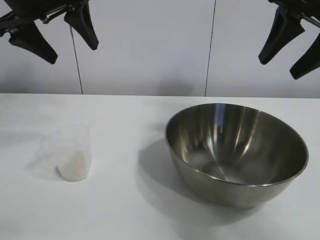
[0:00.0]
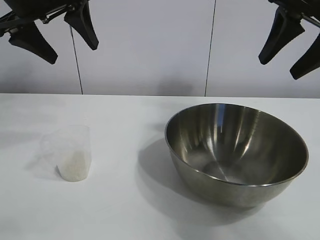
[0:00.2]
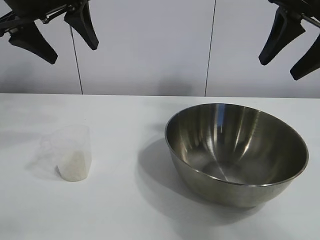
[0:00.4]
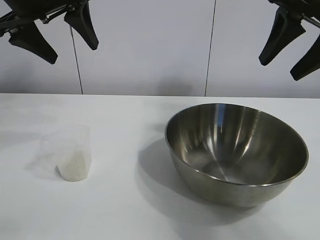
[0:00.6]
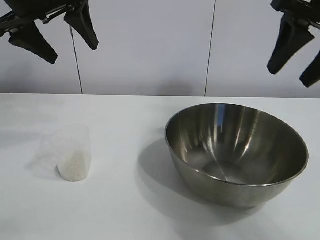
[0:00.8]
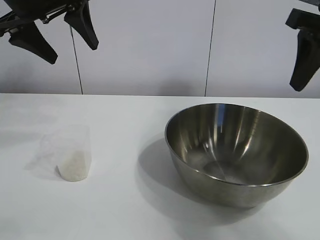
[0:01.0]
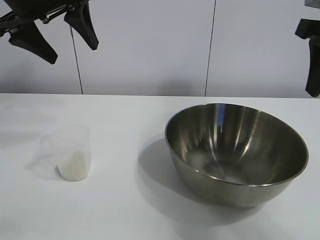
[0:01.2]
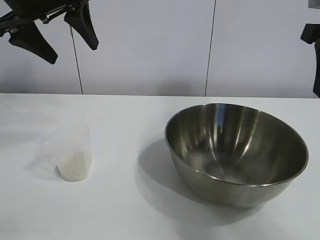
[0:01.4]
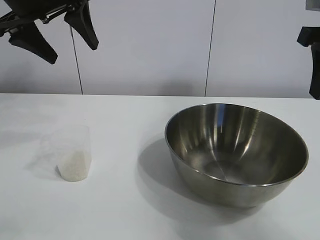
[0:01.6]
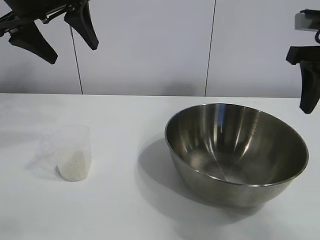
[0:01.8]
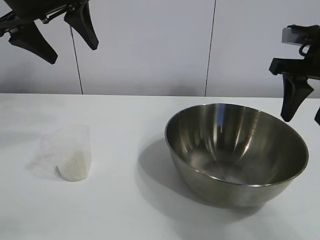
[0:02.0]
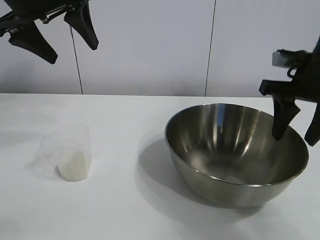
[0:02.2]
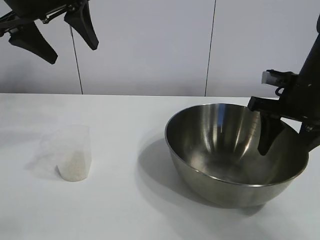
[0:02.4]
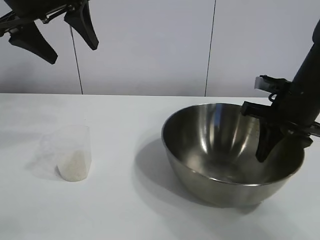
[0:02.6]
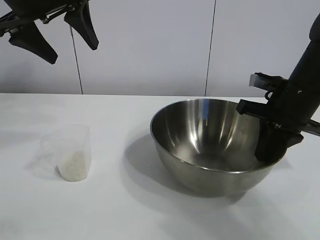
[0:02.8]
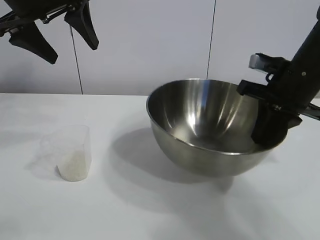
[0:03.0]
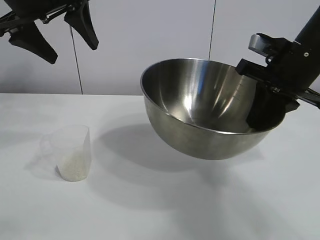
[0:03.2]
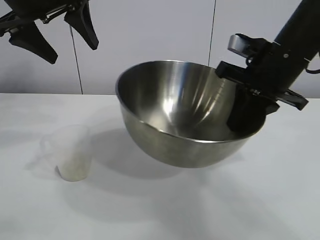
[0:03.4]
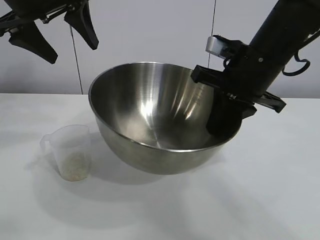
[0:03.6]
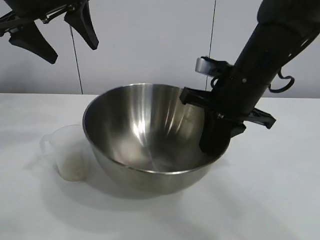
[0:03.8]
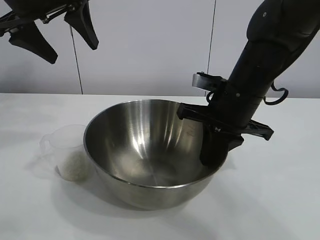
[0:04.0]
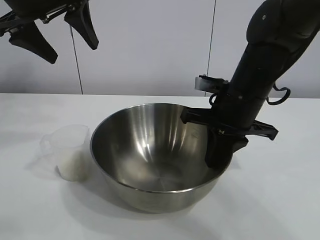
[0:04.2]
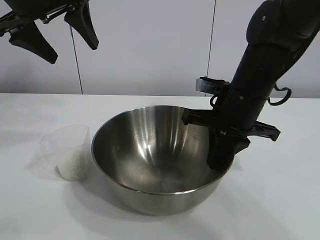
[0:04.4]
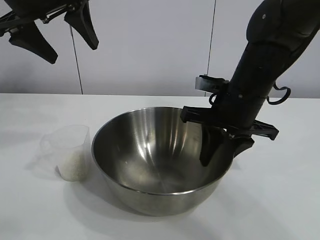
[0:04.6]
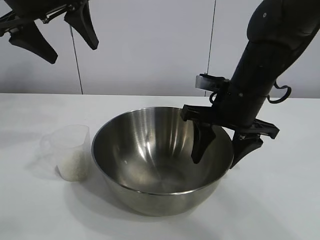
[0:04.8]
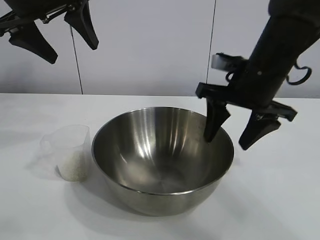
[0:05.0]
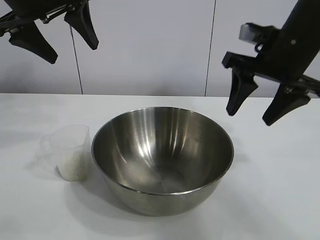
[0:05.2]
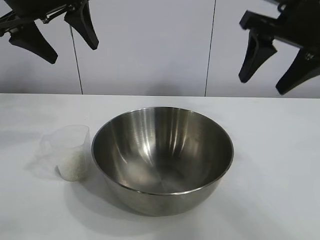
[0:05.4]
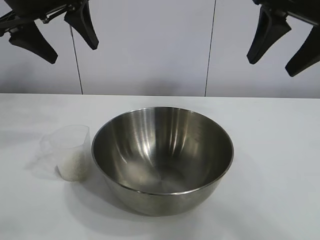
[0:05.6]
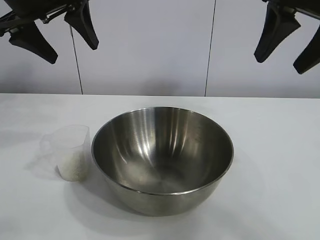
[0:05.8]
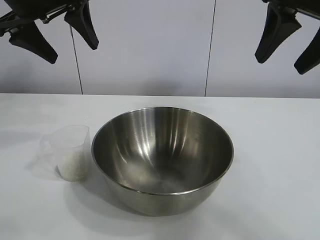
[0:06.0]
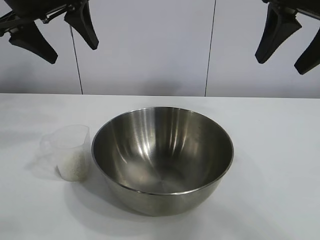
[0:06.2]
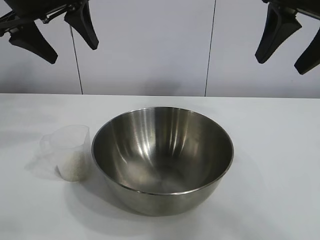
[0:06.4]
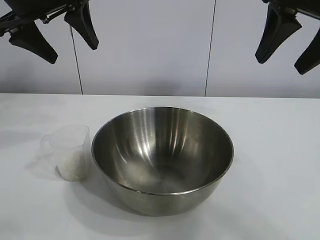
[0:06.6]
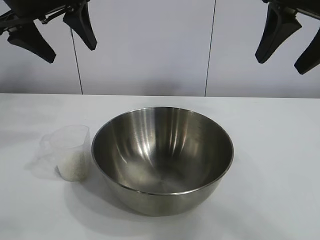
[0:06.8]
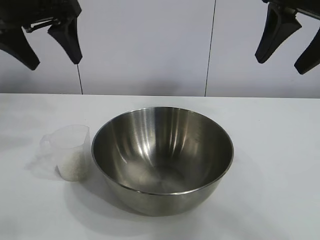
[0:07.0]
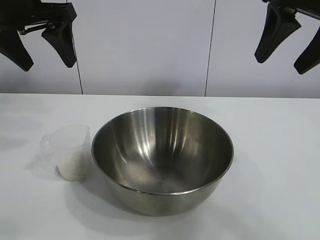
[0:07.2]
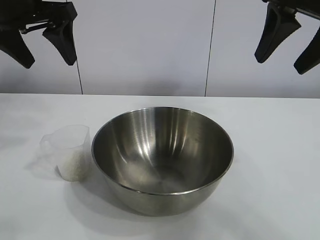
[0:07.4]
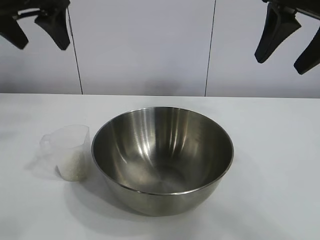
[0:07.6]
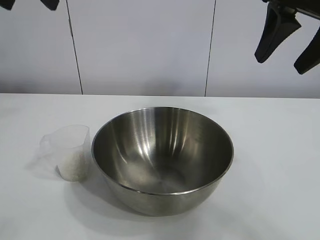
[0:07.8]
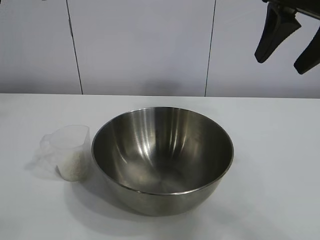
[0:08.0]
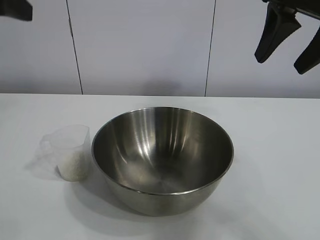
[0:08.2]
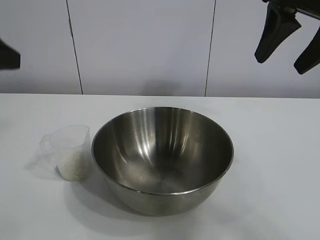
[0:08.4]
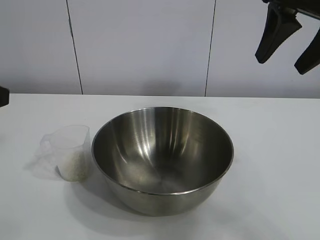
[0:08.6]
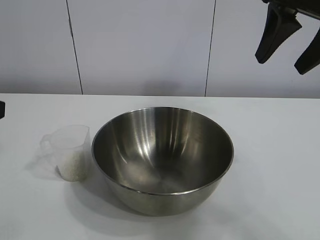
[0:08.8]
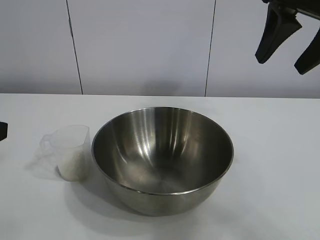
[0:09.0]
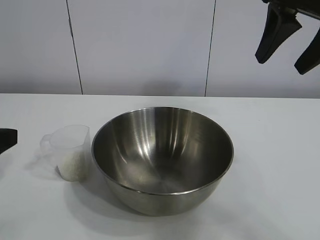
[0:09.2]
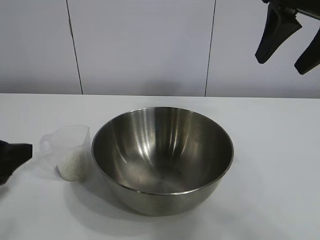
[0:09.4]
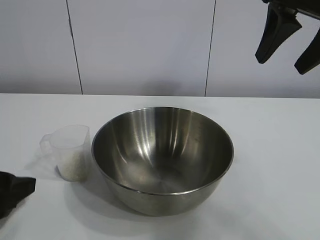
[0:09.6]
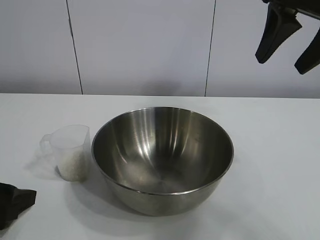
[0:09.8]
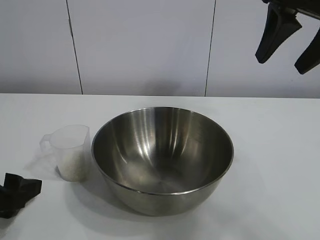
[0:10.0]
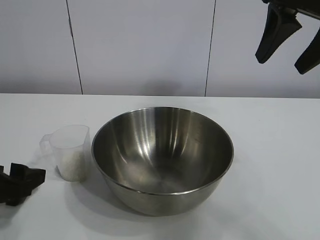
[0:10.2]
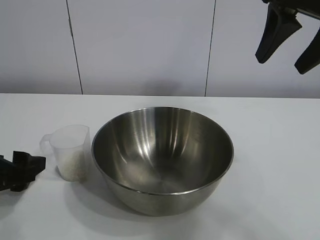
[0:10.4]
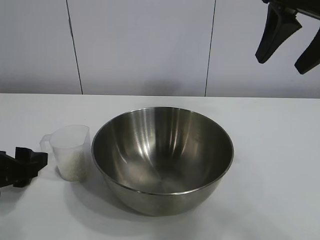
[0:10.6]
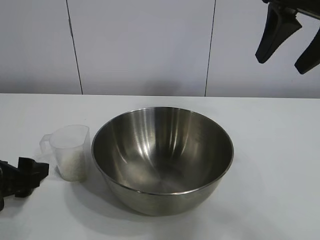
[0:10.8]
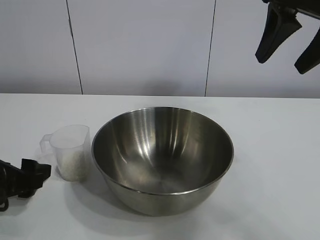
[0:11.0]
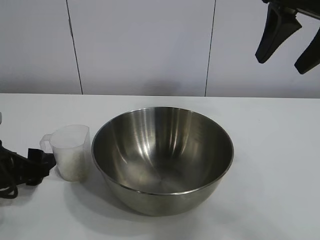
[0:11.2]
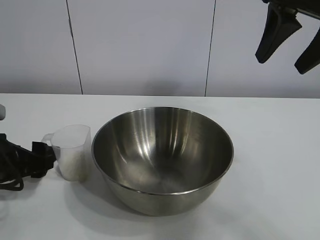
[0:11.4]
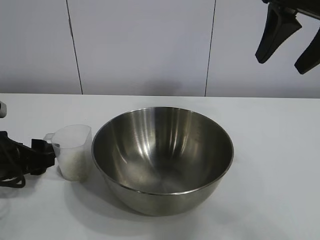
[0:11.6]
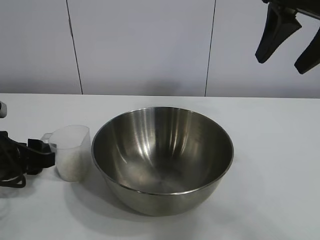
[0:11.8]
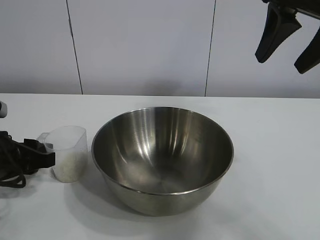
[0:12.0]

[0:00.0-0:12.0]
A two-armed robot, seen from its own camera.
Task of the whole recording: the right gripper grasp the rice container and place it in the center of the table, the left gripper grasp the rice scoop and pour the rice into the rice container.
Step, 0:00.8 to 0:04.8: Move the bowl in the center of view with right gripper.

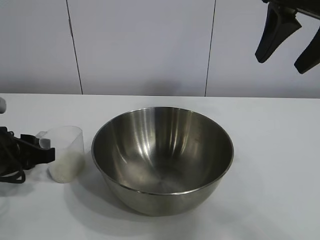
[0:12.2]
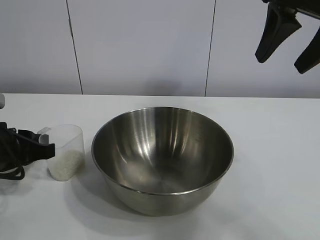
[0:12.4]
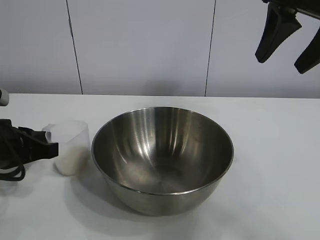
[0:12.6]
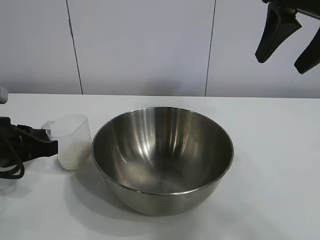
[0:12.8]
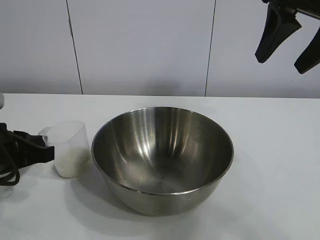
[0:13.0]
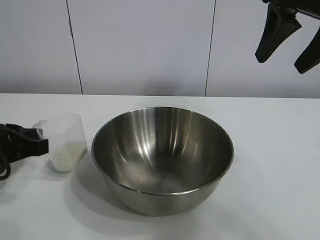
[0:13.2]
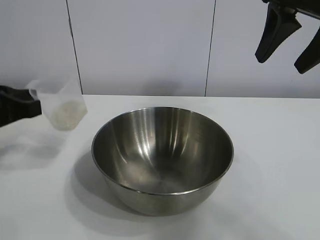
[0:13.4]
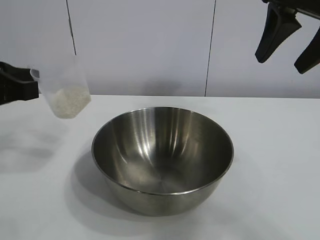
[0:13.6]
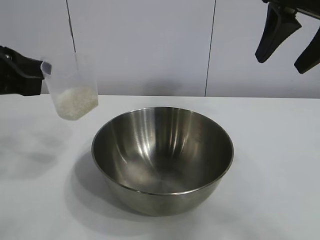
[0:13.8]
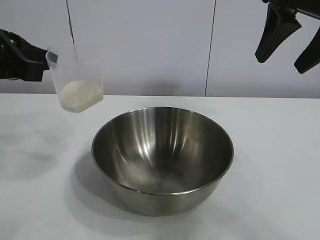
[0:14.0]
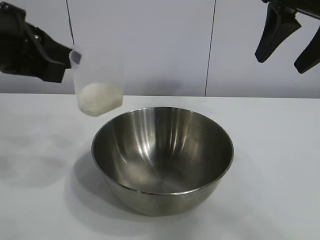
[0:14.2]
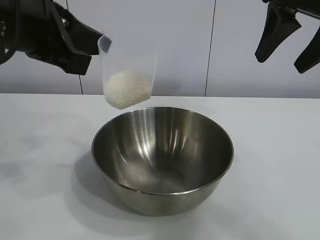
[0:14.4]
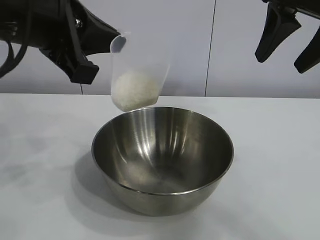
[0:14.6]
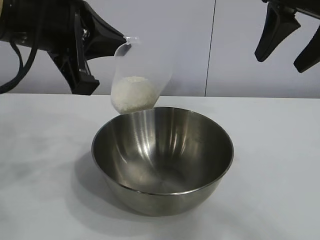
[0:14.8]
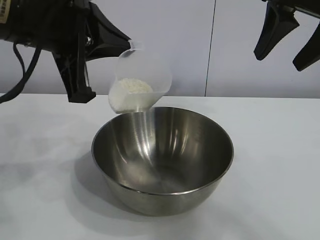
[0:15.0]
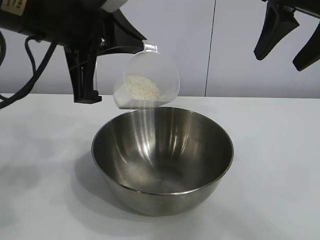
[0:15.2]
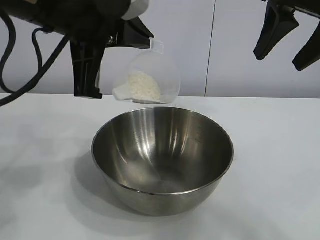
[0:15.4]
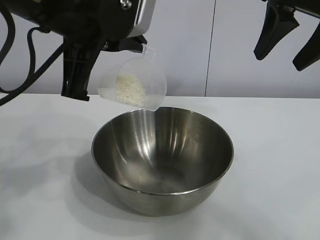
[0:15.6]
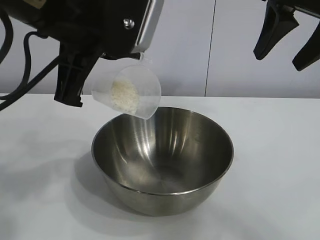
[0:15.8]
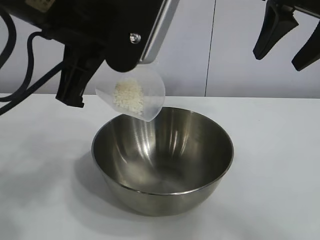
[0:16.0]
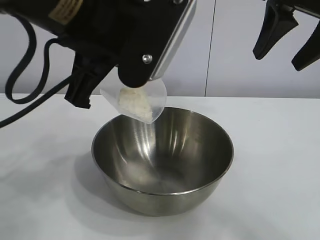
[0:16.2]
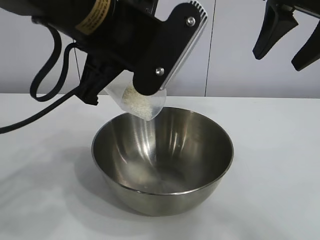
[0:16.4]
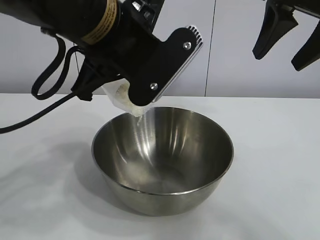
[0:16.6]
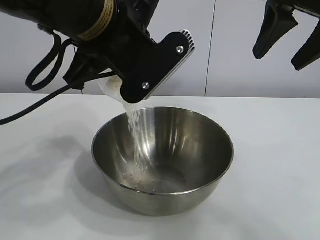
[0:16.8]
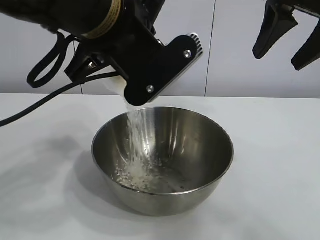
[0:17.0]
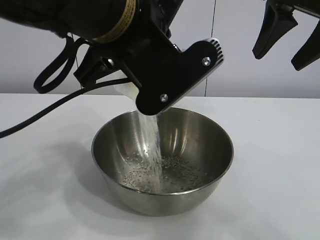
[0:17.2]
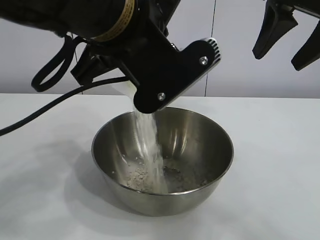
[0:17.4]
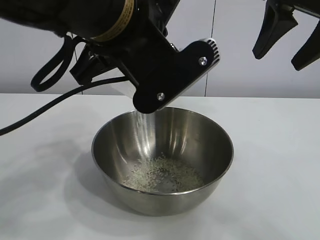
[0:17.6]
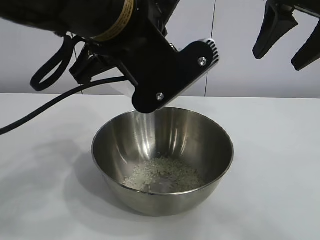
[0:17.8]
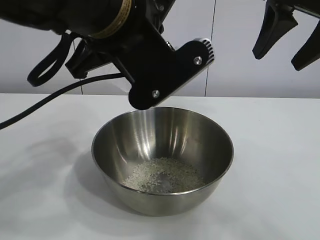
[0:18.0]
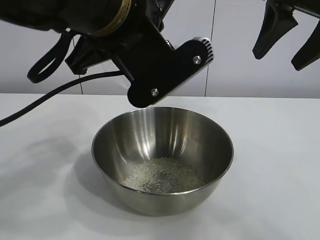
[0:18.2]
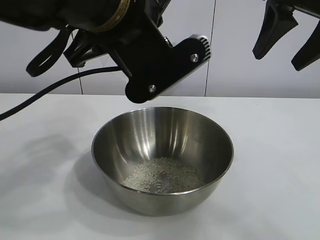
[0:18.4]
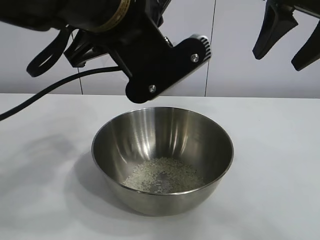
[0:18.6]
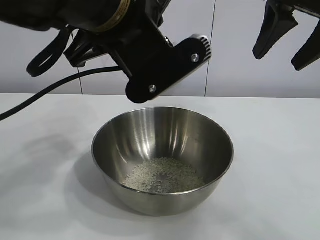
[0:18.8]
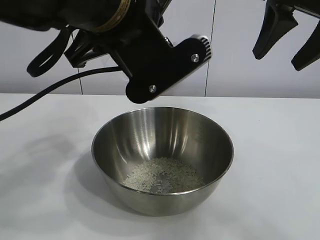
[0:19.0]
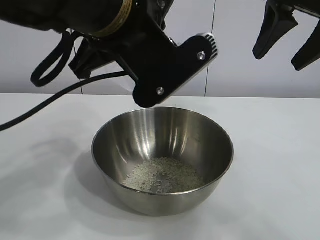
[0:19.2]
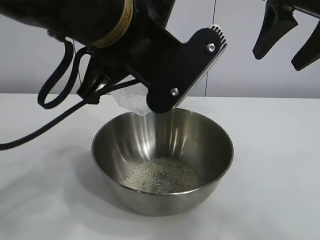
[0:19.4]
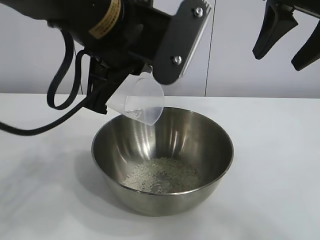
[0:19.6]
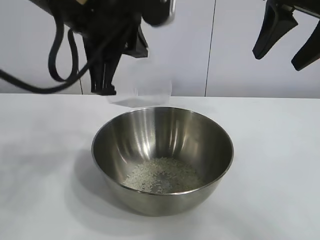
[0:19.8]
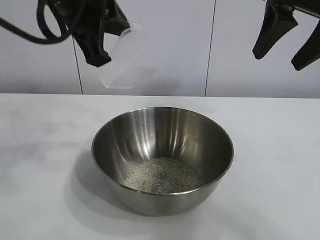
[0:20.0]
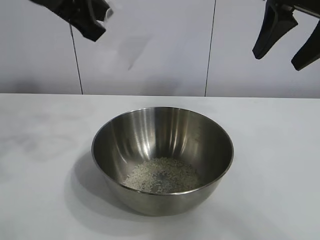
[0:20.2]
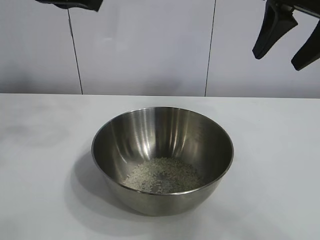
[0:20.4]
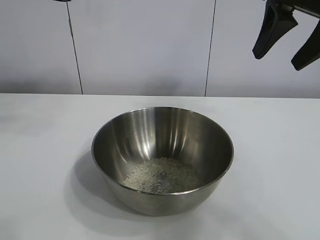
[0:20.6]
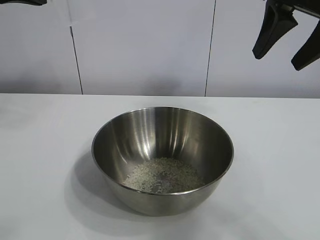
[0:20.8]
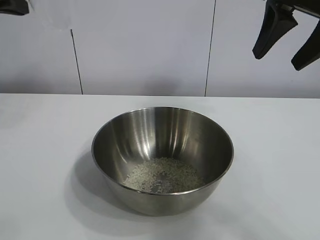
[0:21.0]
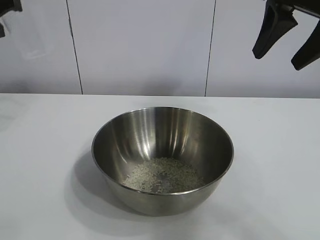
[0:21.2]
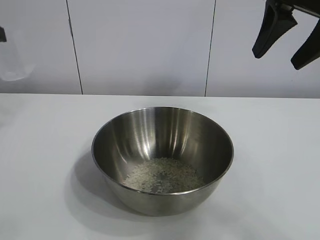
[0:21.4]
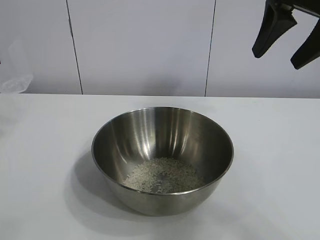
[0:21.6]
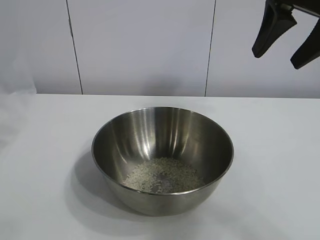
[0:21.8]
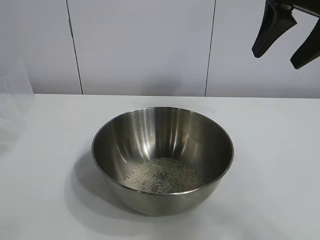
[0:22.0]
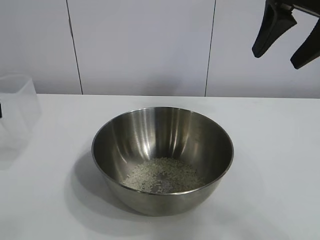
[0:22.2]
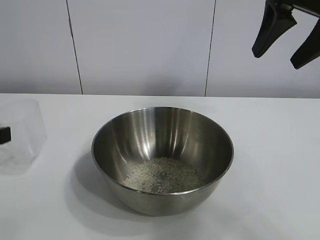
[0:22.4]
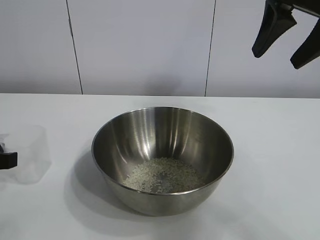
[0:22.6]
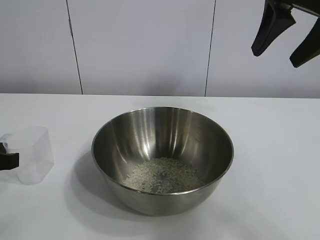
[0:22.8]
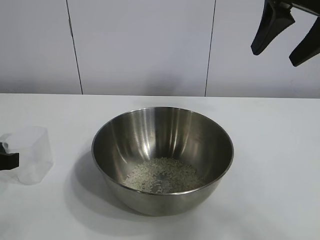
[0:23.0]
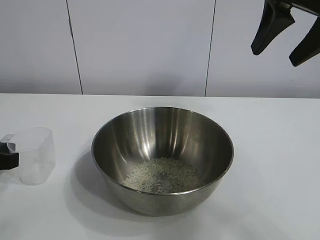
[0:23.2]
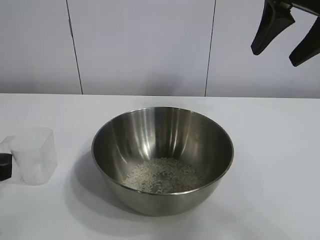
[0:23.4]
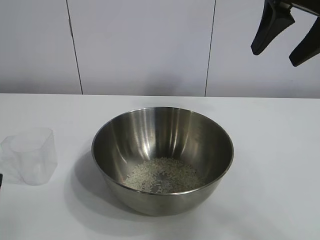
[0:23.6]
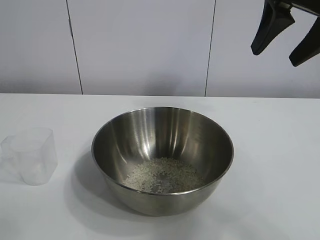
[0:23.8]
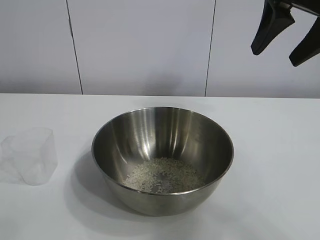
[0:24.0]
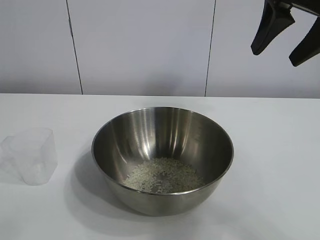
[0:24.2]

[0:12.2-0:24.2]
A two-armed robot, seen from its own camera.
Task of the whole recording: the right gripper grasp the rice container and place it in the center of the table, the left gripper grasp the rice scoop and pour the rice into the rice container.
Step, 0:12.8 to 0:18.2: Pour the rice from the cup into the bowl with the left gripper.
Step, 0:18.4 to 0:23.2: Place the cup on the table with the left gripper.
